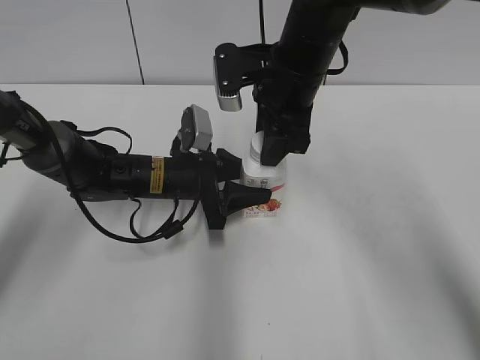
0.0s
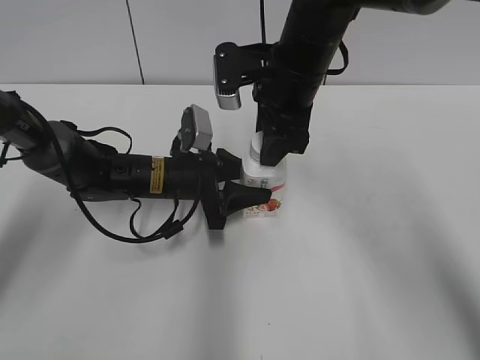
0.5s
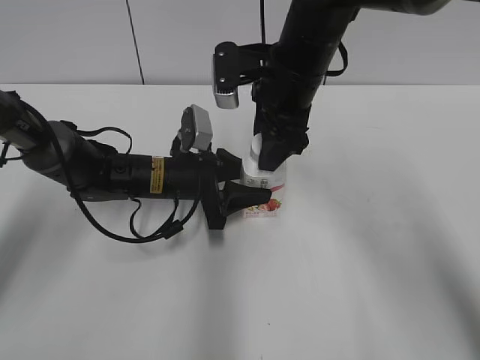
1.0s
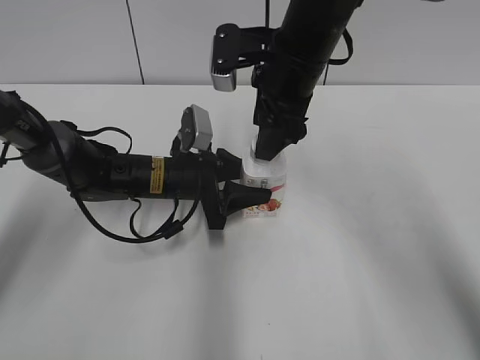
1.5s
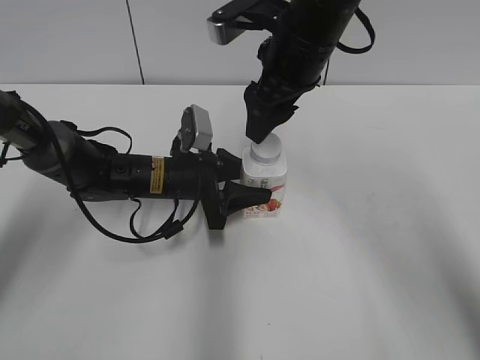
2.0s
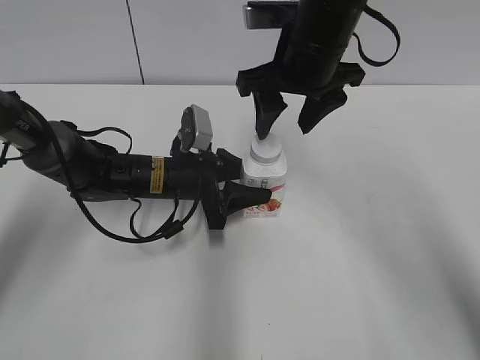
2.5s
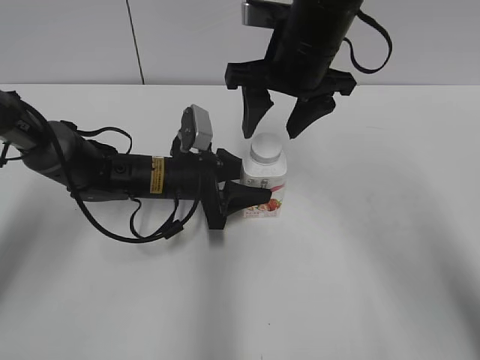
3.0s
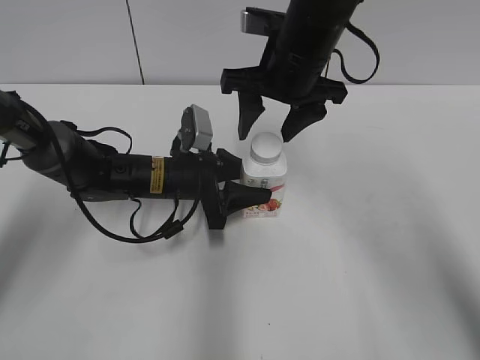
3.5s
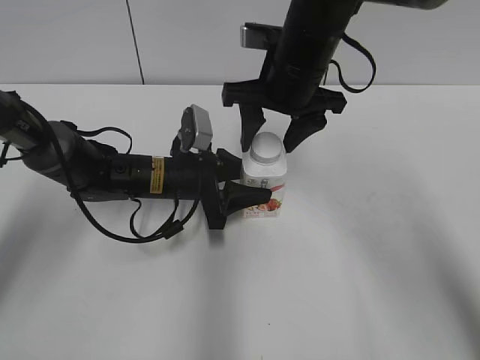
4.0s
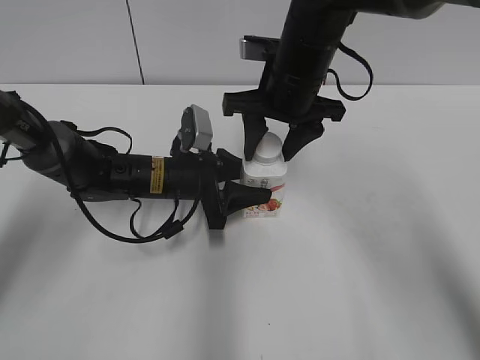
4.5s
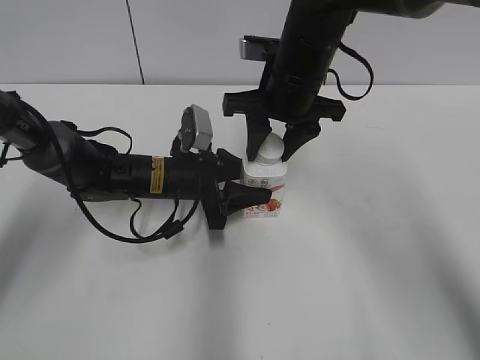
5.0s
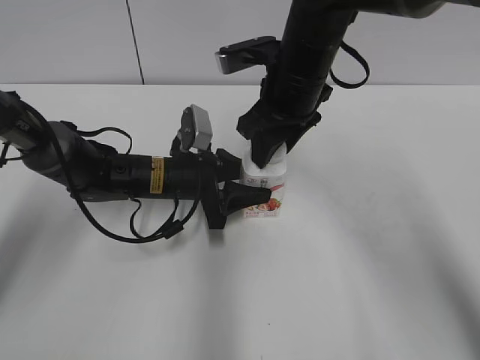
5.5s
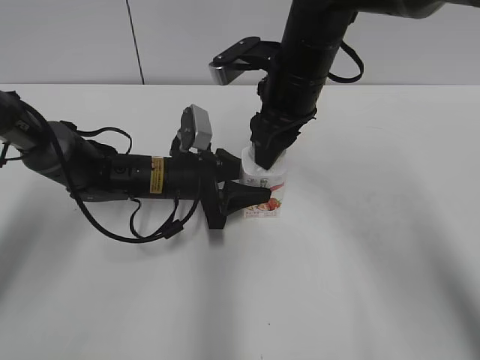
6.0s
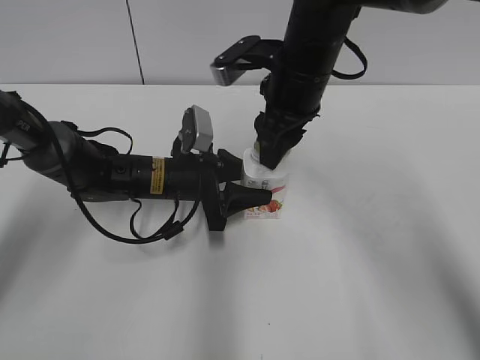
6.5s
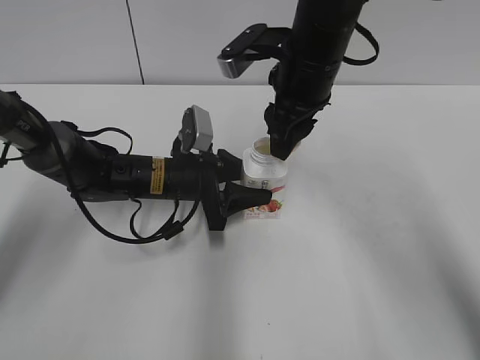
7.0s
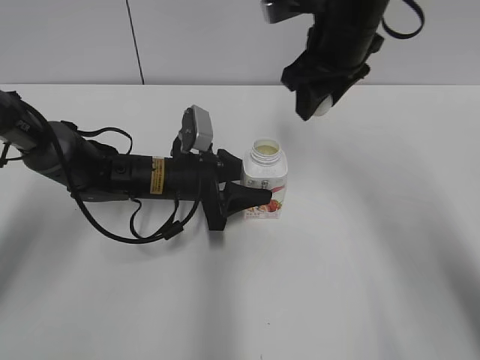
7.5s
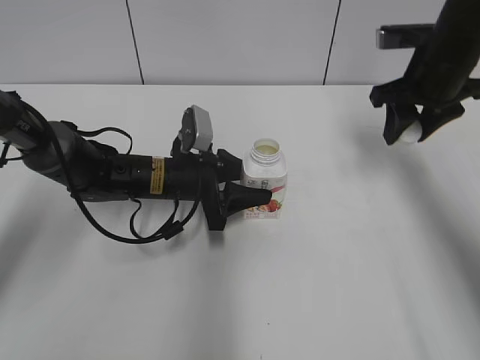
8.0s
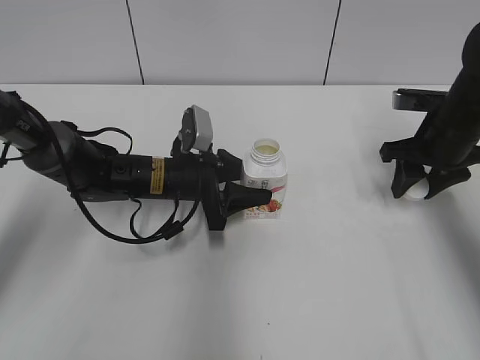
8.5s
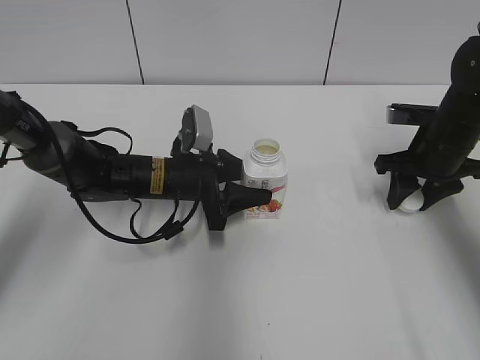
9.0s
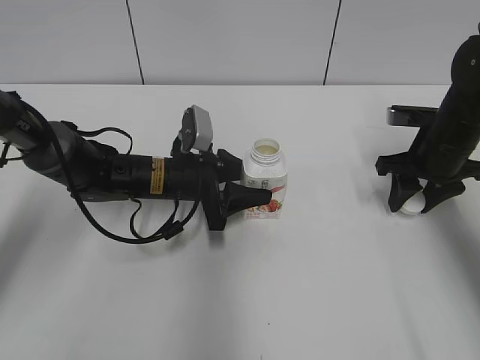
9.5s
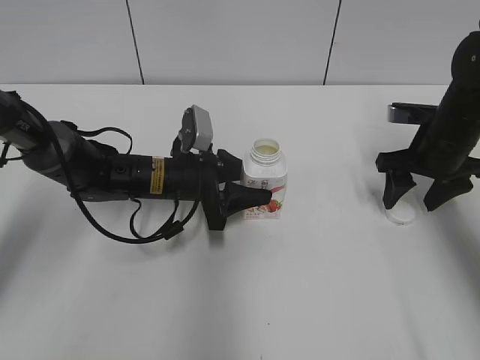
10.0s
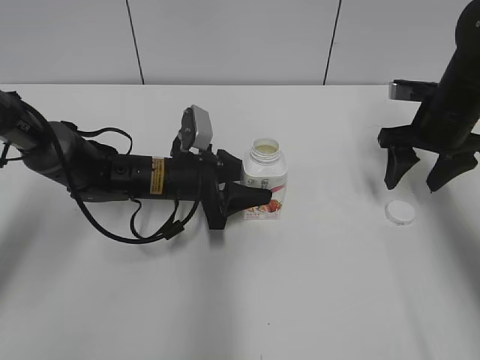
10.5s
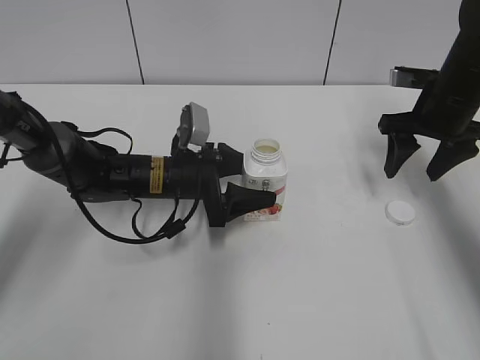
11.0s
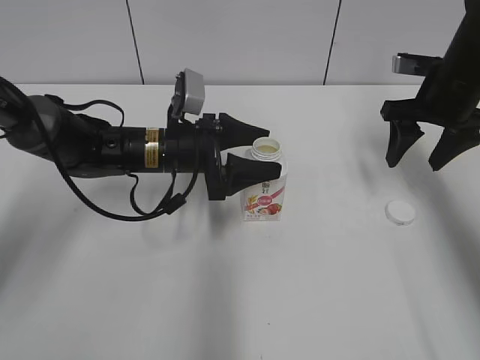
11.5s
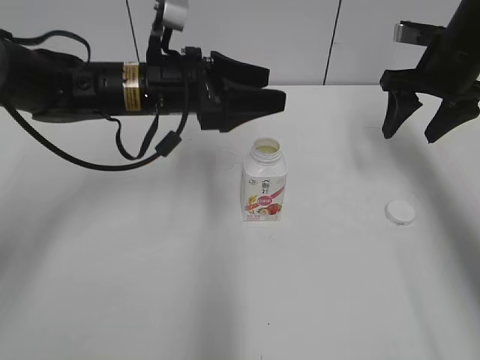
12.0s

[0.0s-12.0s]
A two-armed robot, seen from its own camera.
Step, 0.0s to 7.0s: Unscrew the bottle cap with the right gripper while holding the bottle with the left gripper.
Step, 7.5s to 9.5s: Place the bottle cap on the table with the right gripper.
0.0s to 2.0s: The right gripper opens its fingers.
4.0s to 6.0s: The right gripper closes.
6.0s to 8.0s: The right gripper heads to the right, covering approximately 15 cm.
8.0s to 10.0s: The right gripper shifts roughly 10 cm downward, and opens up.
10.0s to 12.0s: The two grippers go roughly 10 cm upward. The left gripper opens its fingers.

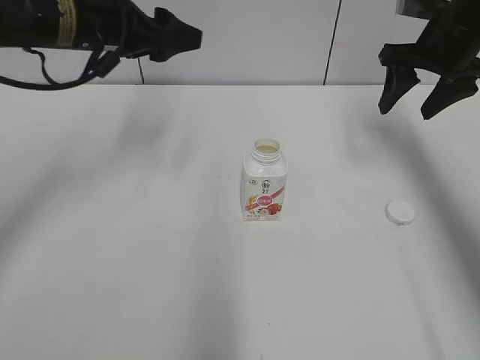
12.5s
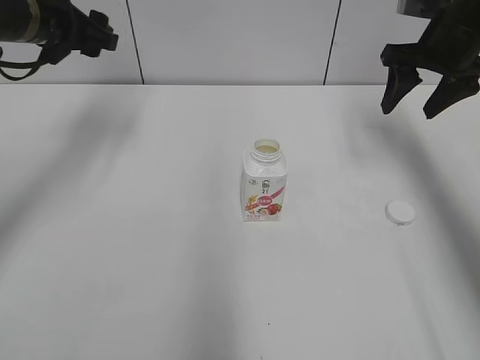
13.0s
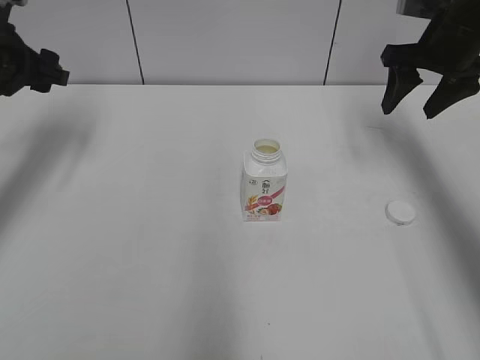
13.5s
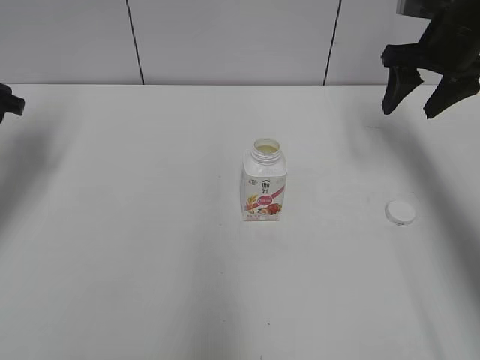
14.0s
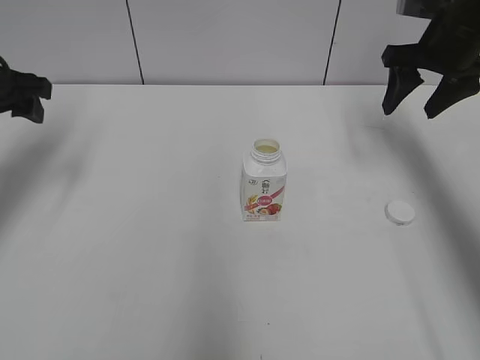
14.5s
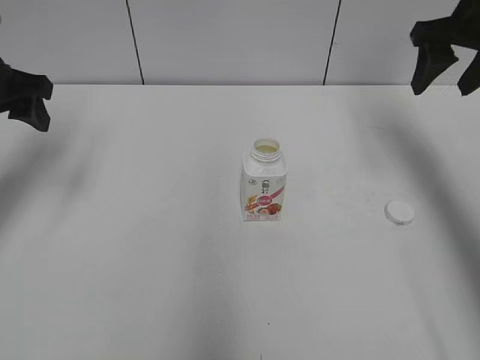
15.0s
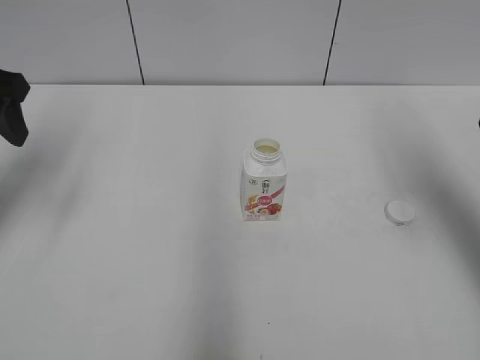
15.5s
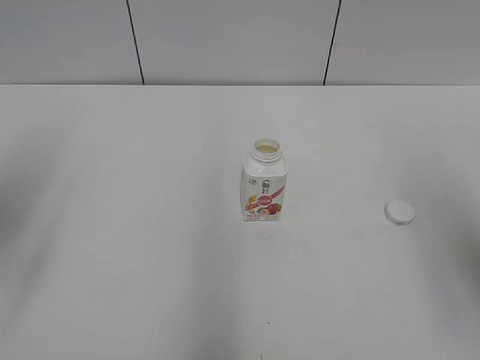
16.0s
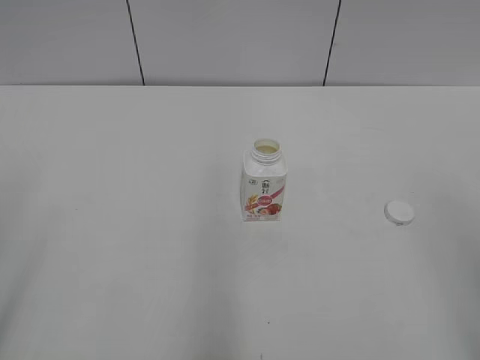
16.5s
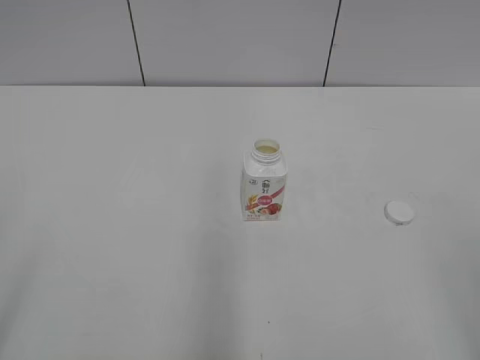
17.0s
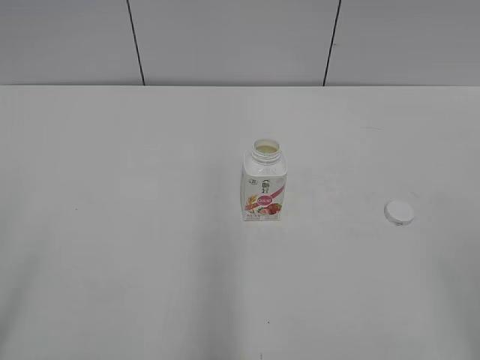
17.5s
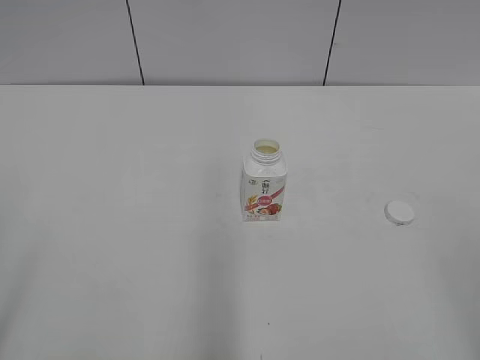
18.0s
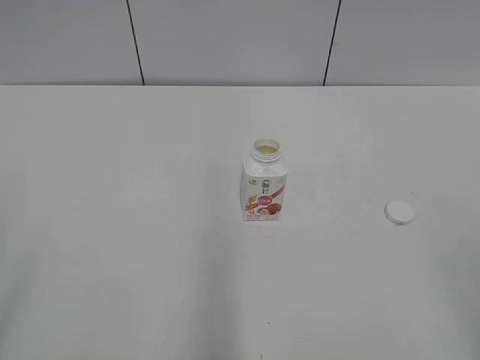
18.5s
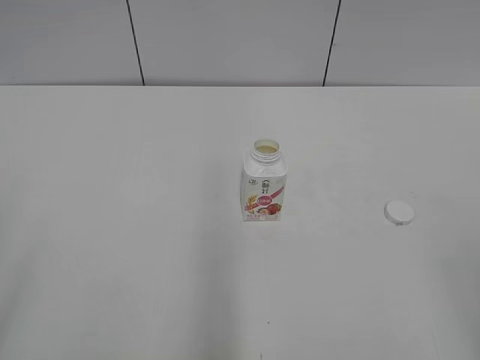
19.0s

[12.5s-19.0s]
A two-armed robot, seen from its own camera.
12.5s to 14.5s: The left gripper shifts some 15 cm to the left.
14.5s to 17.0s: Both grippers move backward, some 40 cm.

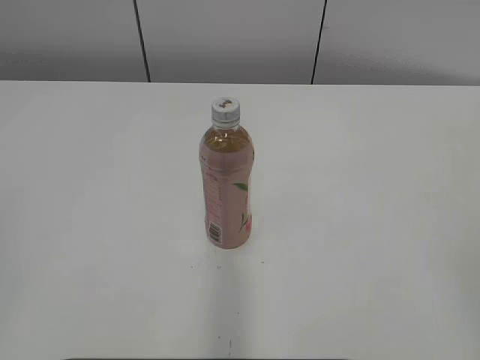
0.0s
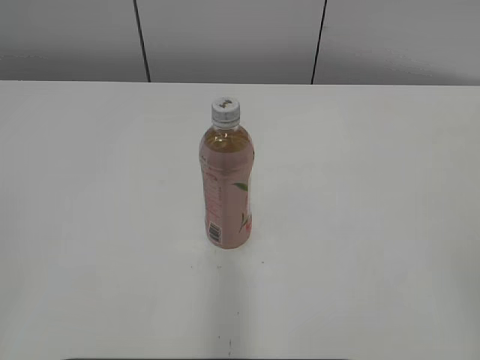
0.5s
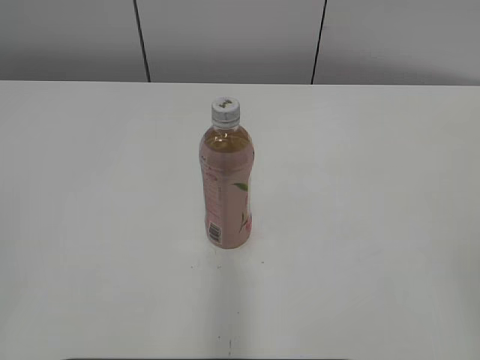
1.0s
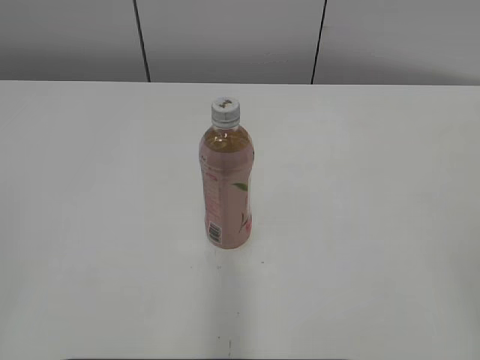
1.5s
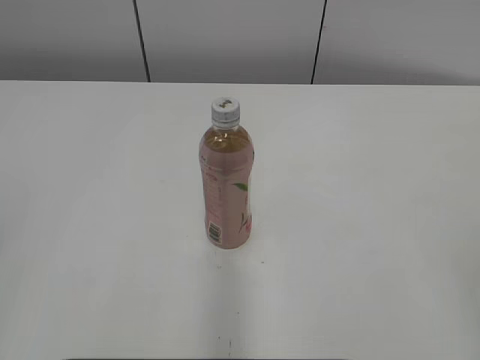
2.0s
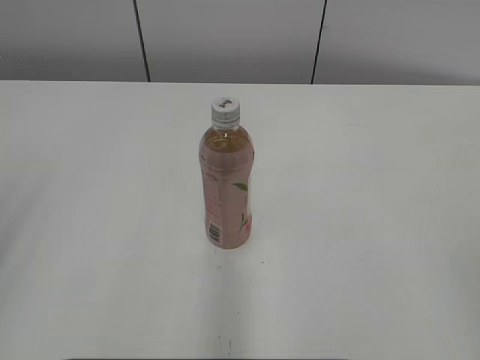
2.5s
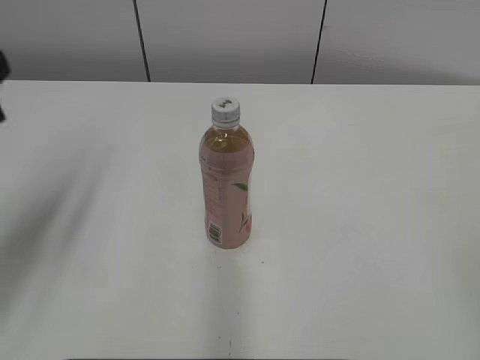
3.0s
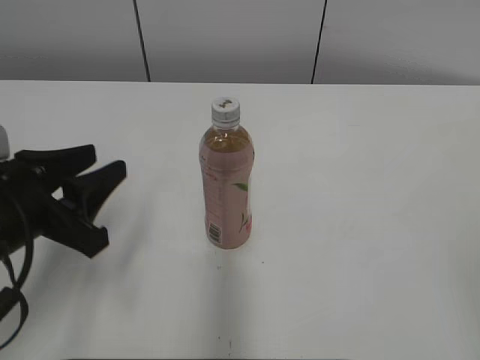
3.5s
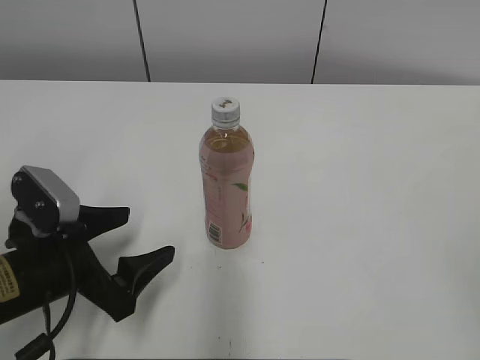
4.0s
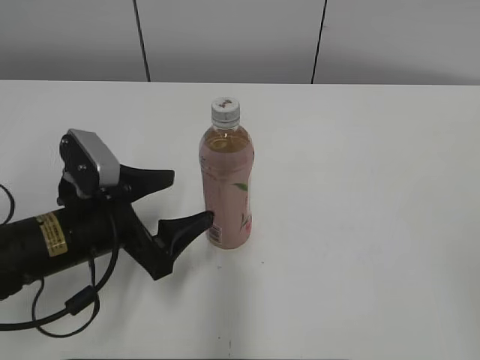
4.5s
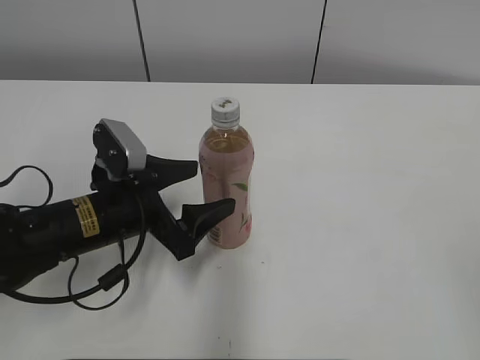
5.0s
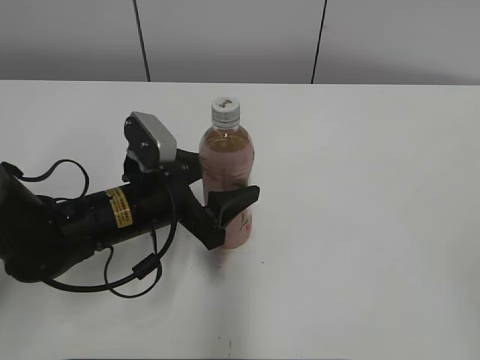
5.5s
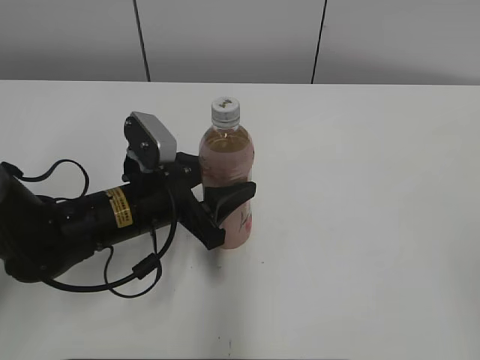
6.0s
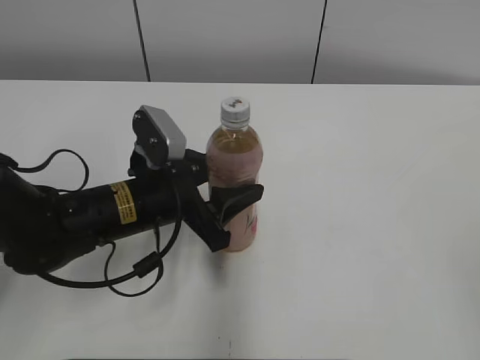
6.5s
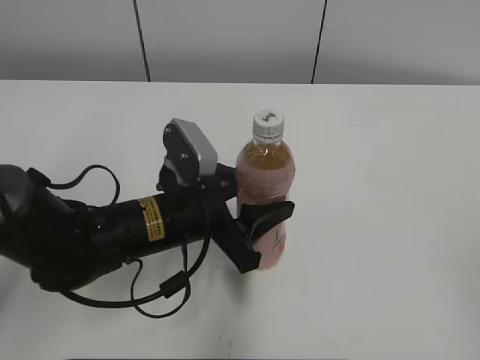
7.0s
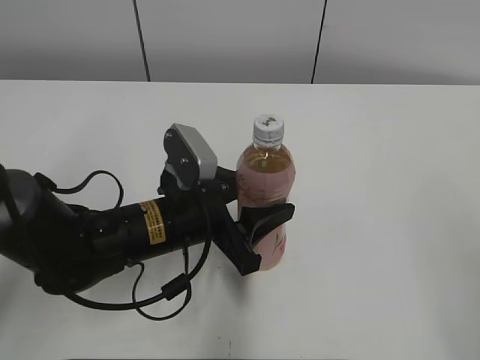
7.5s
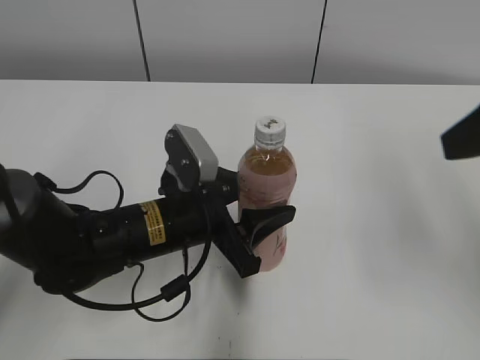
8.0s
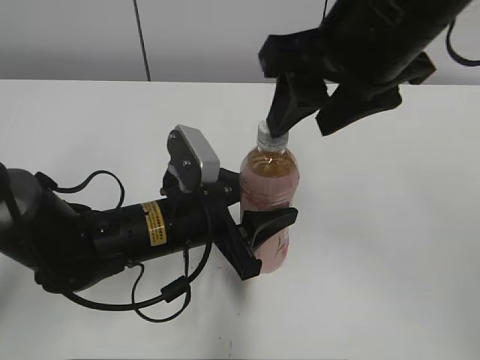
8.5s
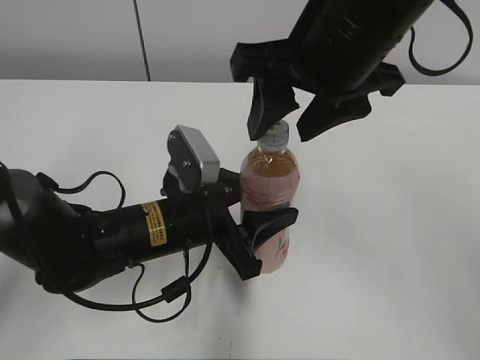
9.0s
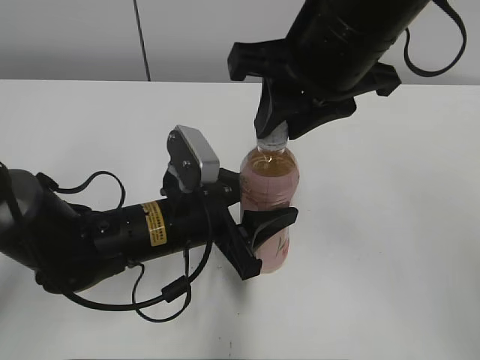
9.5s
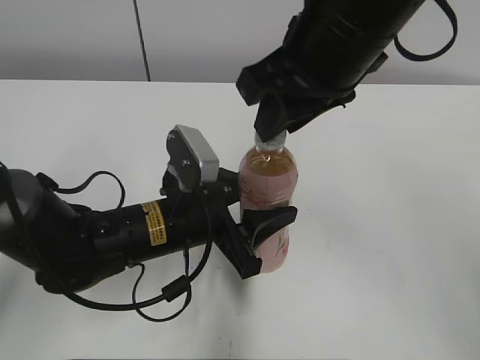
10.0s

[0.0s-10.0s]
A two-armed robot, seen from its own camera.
Step, 0.0s to 6.0s: Grab the Peach Oolong Tea with the left hand.
Step, 6.5s to 9.0s: Move the Peach Oolong Tea from left to right.
2.0s to 4.0s: The left gripper is displaced downward, forward and to the right by some 30 cm, and opens.
4.0s to 6.0s: The left gripper heads forward and to the right, covering about 10 cm, and closes its fingers.
6.0s to 8.0s: The right gripper shifts some 20 cm forward.
8.0s to 10.0s: The right gripper shifts some 20 cm to the left and forward, and closes its fingers.
